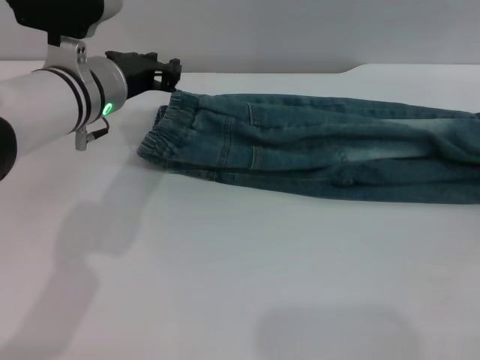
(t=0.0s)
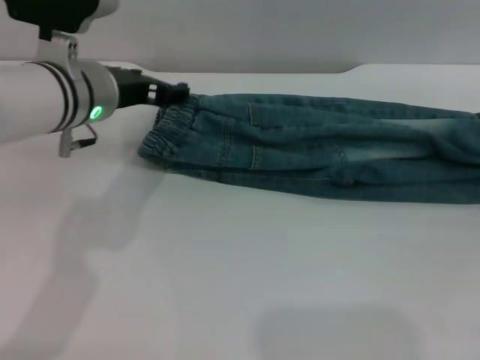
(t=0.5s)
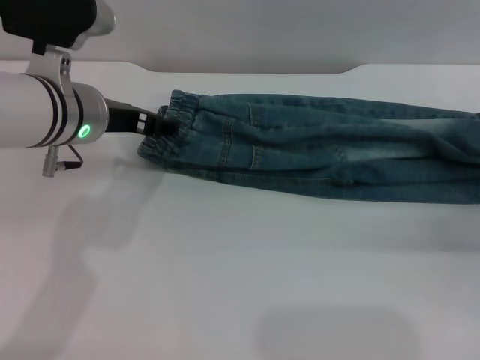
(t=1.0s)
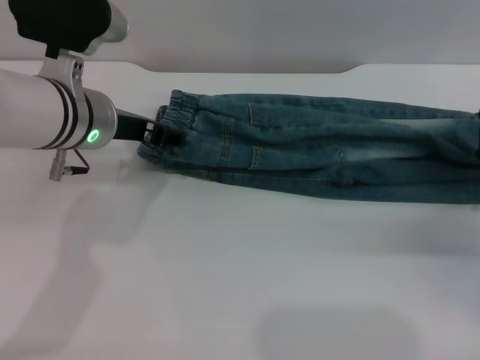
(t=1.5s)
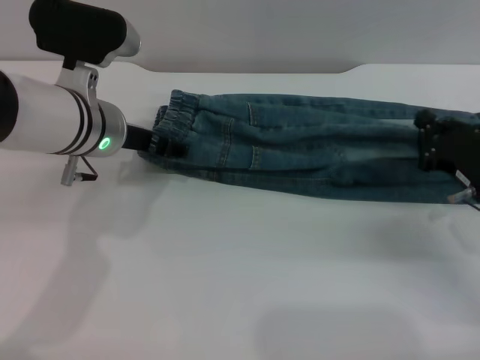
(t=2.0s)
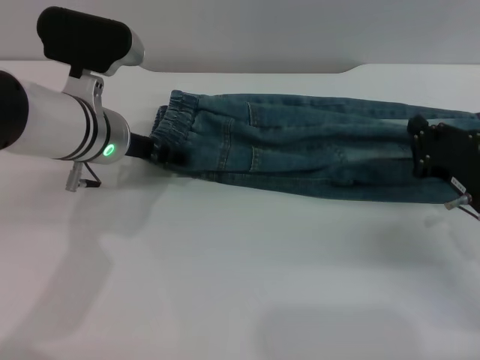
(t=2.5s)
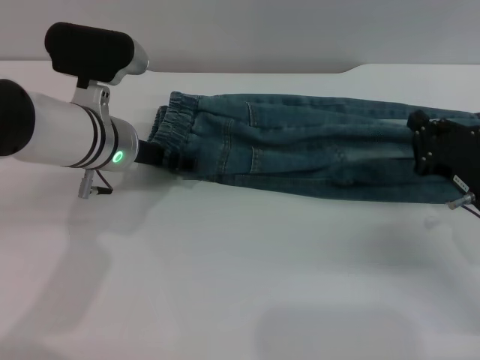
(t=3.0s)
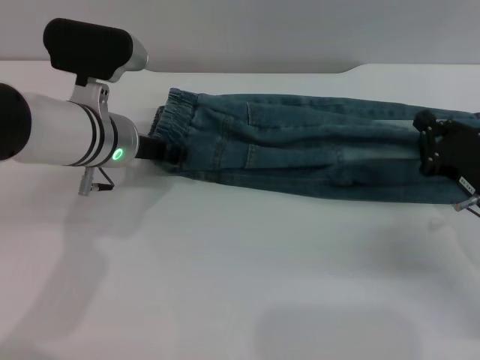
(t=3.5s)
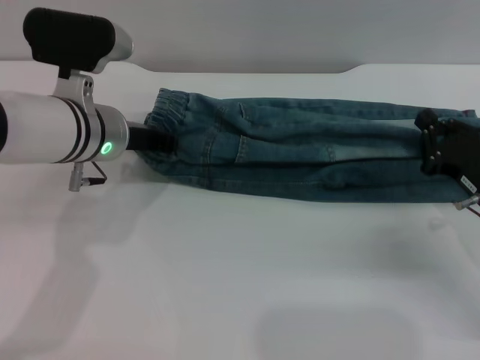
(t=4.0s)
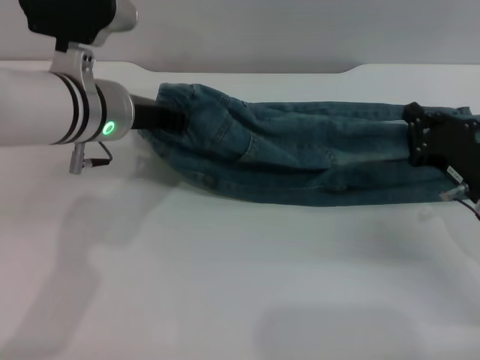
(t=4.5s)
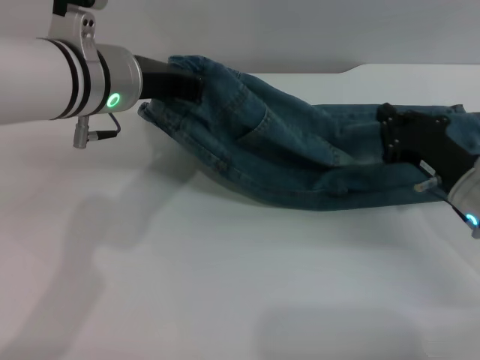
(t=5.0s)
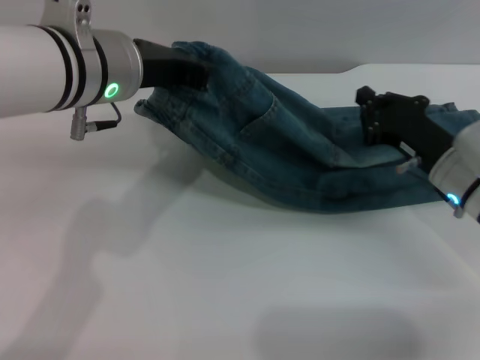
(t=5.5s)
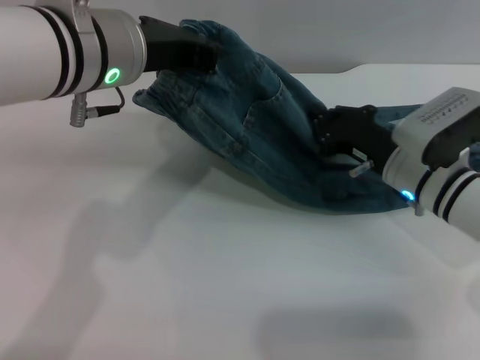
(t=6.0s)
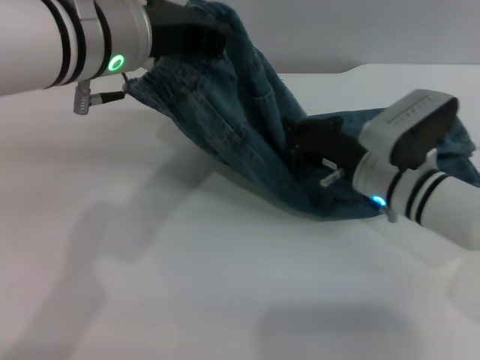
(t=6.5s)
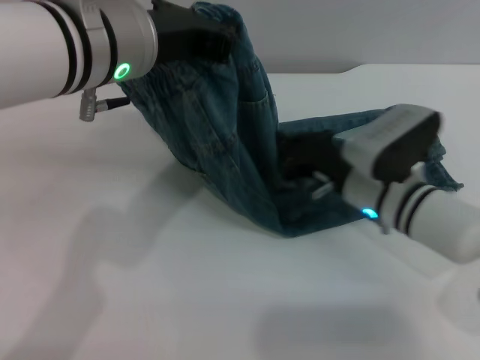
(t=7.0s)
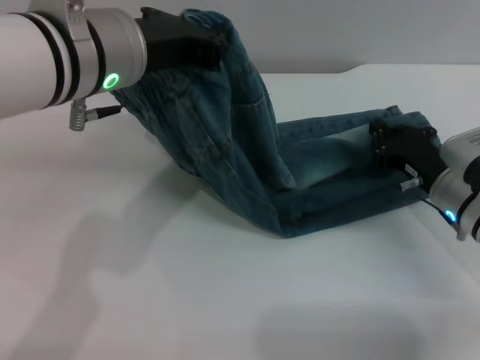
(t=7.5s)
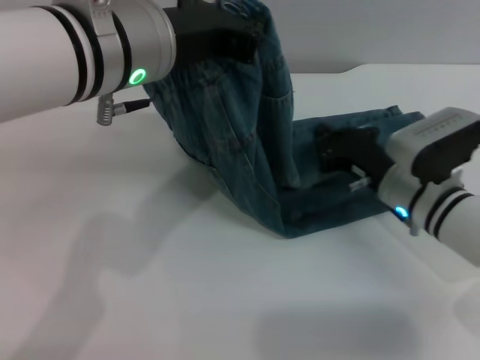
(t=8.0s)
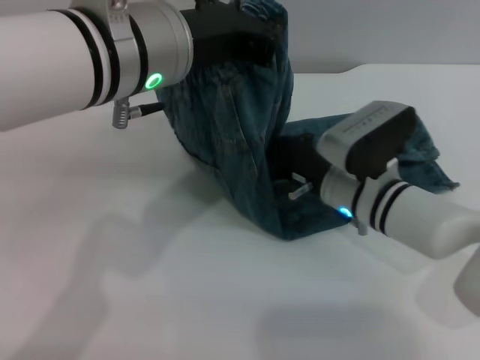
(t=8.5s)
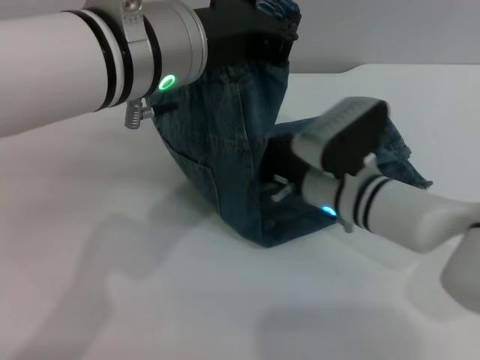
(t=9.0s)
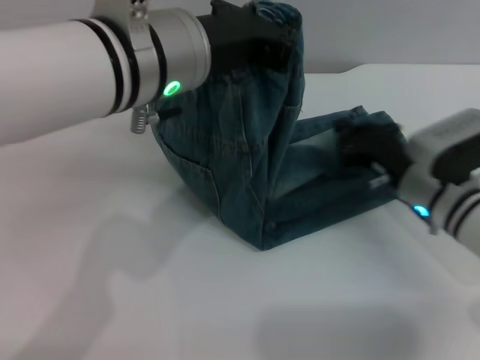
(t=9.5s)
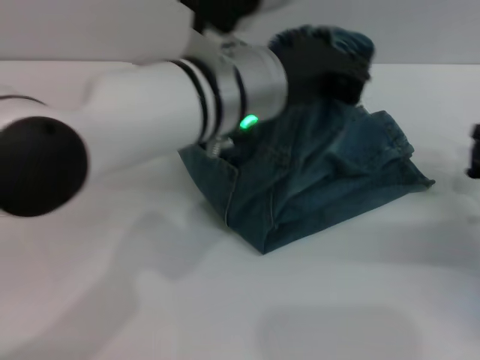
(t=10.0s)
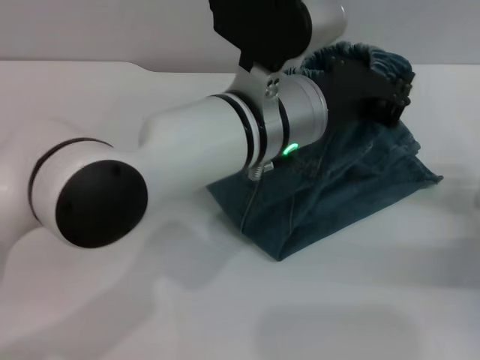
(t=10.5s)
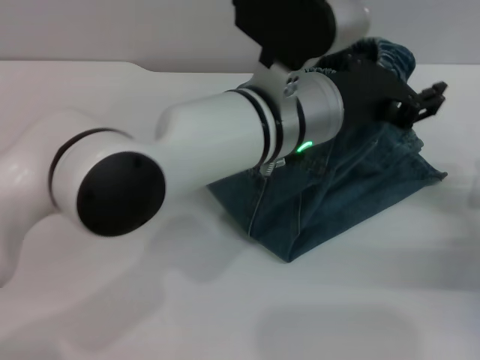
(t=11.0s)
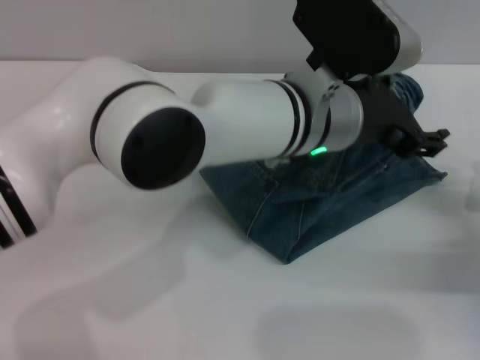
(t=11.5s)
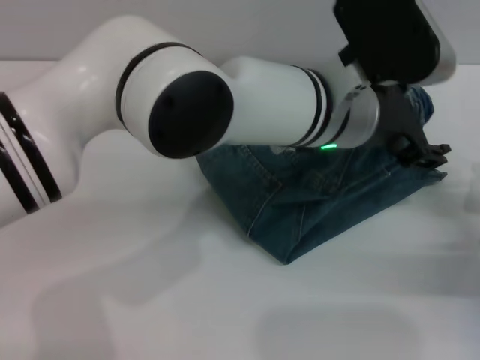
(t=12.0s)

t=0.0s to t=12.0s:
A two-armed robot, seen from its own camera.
Step, t=0.0s to t=2.0s: Fold the bottom of the pants upward with both grippers.
t=0.0s to t=2.0s: The right gripper travels to the left and downward by roughly 15 cm, and closes. The left gripper opens up.
t=2.0s to t=4.0s: The left gripper closes.
t=4.0s to t=6.0s: The right gripper moves to the left and forward, approximately 10 cm, while the left gripper travels upward by roughly 10 cm.
t=6.0s to t=8.0s: The right gripper swings left and right, roughly 10 cm each way, with 2 reversals.
t=8.0s to t=10.0s: The right gripper is displaced to the right and backward by some 15 cm; the left gripper is displaced to the right by approximately 5 cm.
t=10.0s to t=12.0s: The left gripper goes approximately 5 cm to the right, and opens its fingers.

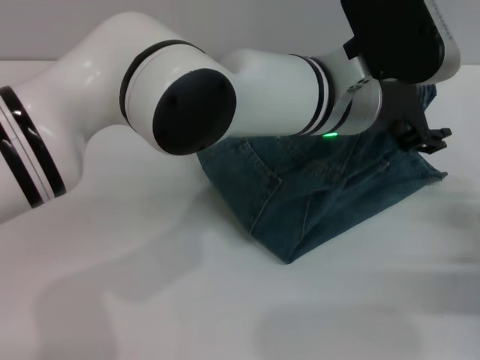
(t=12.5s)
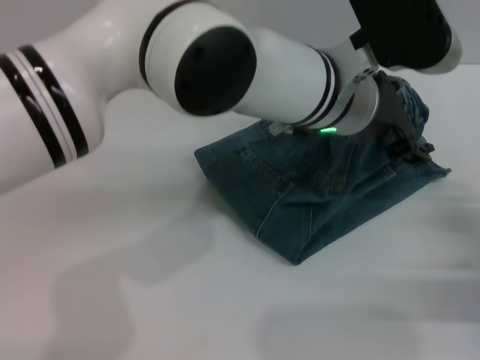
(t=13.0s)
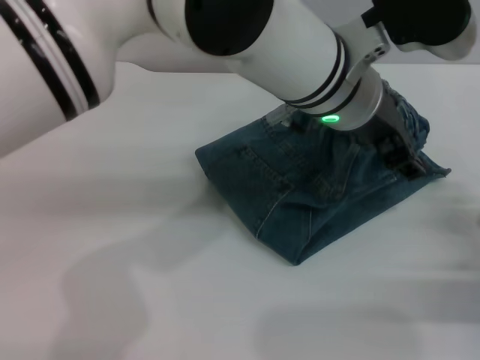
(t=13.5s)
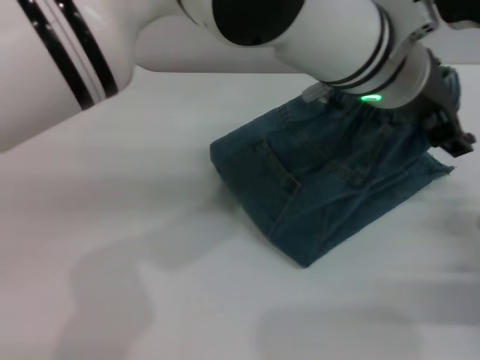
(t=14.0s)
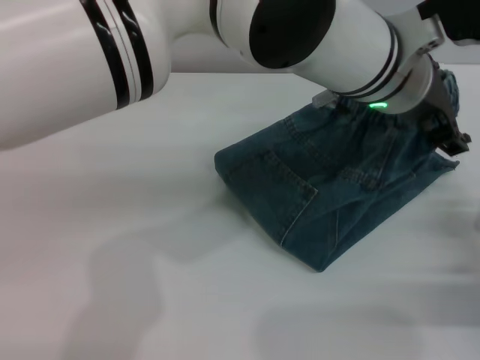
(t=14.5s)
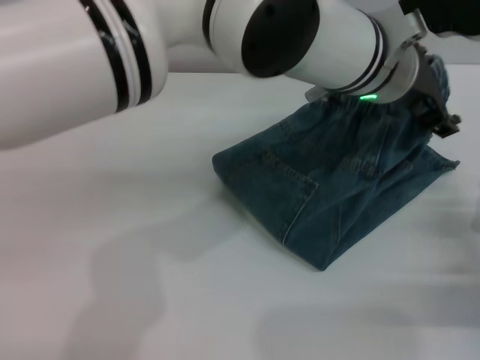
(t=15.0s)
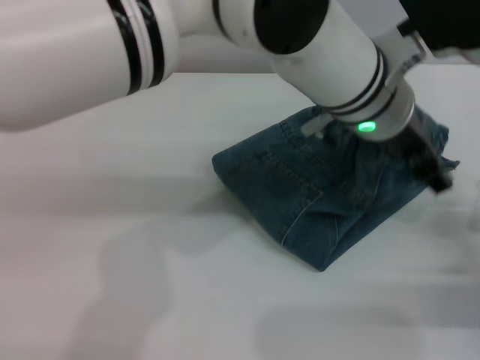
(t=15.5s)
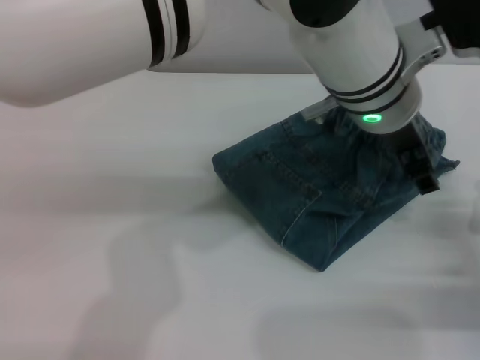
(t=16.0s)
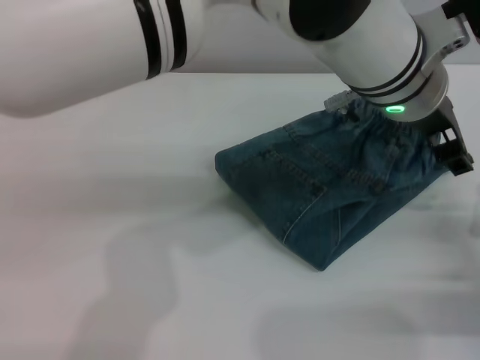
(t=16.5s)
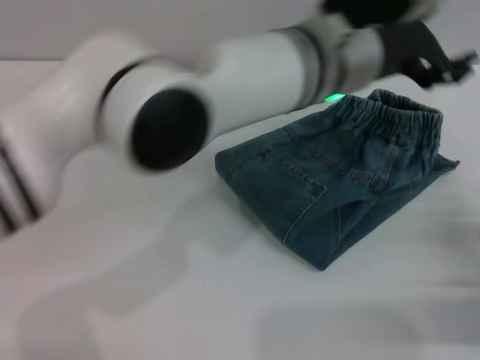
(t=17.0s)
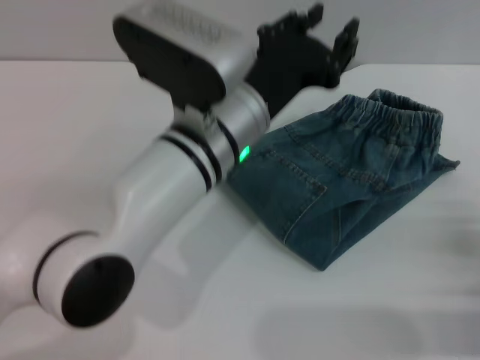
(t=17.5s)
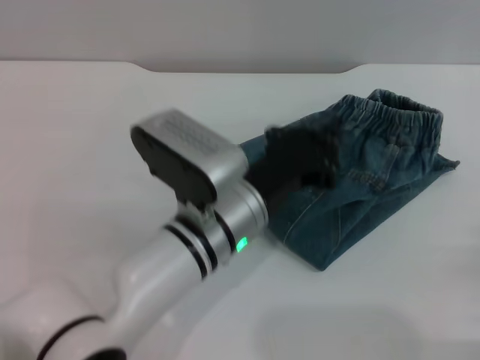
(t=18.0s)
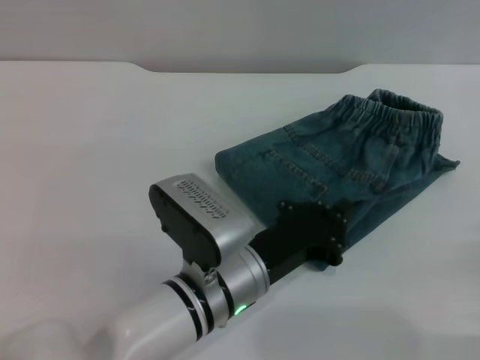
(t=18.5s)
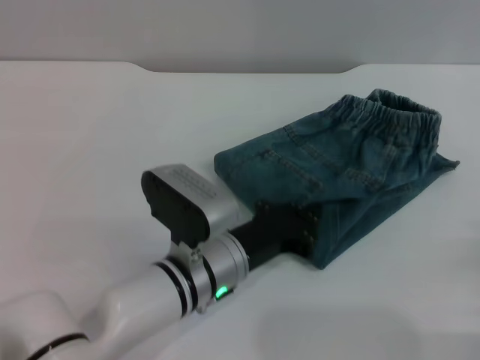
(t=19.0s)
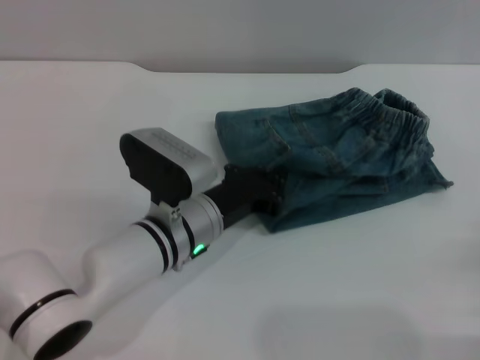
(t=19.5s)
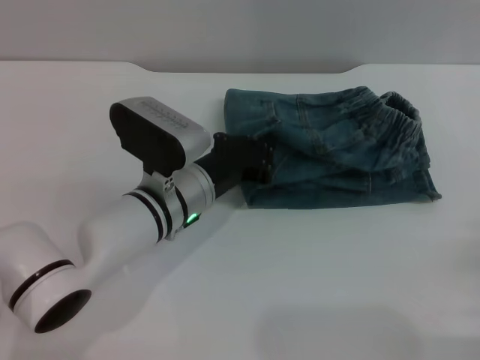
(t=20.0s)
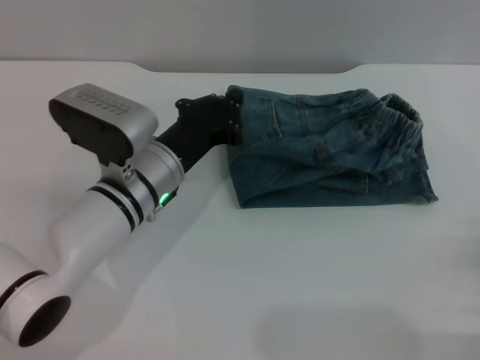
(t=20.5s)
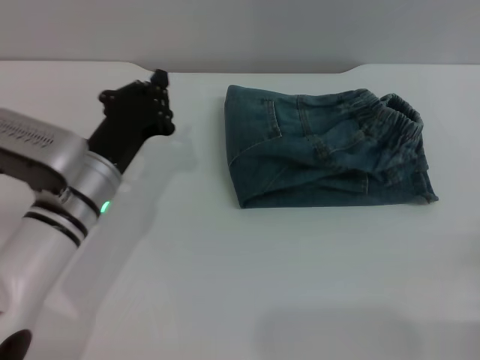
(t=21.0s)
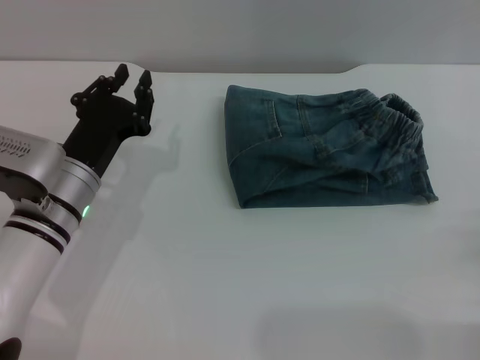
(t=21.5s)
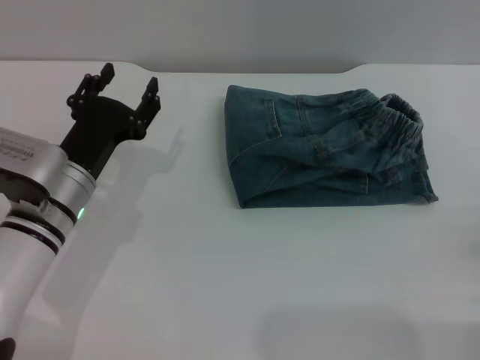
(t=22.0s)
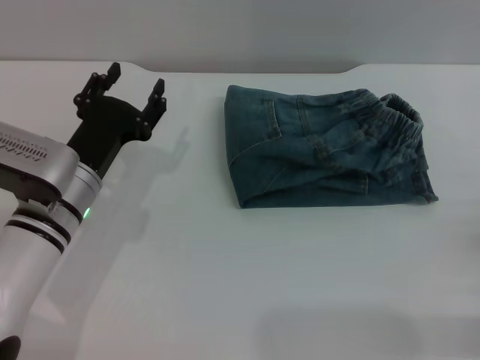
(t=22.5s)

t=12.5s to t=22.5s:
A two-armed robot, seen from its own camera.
Step, t=12.5s to t=16.5s: Fold the pants from left to right with the left gripper.
Step, t=17.0s to t=20.5s: Place the folded trousers onto the center area with the left grippers.
t=12.5s to t=14.5s: The left gripper ends up some 5 cm from where it was.
t=14.5s to t=16.5s: There are only small adjustments of the grippers.
t=16.5s to t=18.5s: The right gripper travels backward by roughly 5 cm. Meanwhile the left gripper shifts approximately 25 cm downward, to the left and backward, and closes.
t=18.5s to t=20.5s: The left gripper travels forward and to the left by some 10 cm.
t=20.5s to t=22.5s: The right gripper opens, while the left gripper goes approximately 5 cm to the left, and opens.
